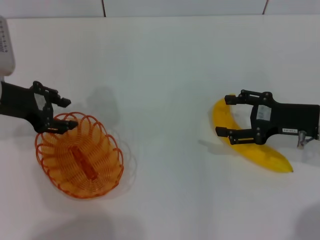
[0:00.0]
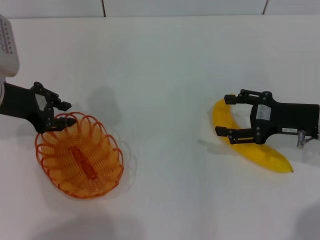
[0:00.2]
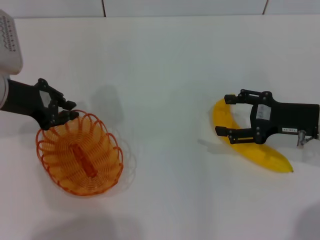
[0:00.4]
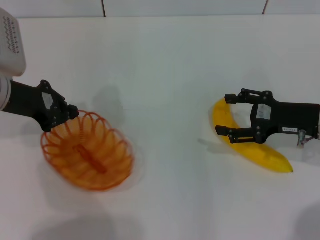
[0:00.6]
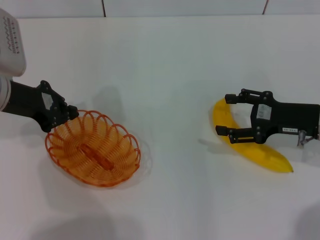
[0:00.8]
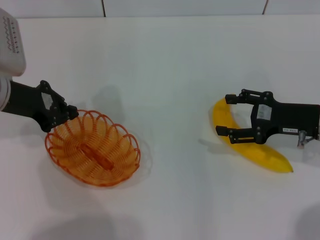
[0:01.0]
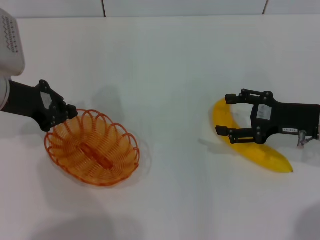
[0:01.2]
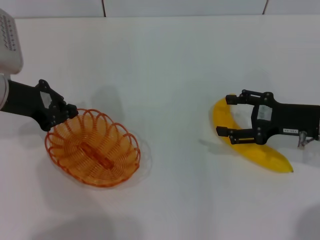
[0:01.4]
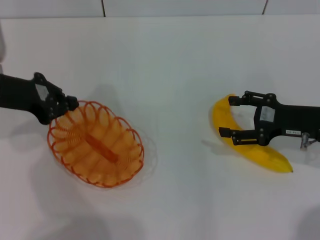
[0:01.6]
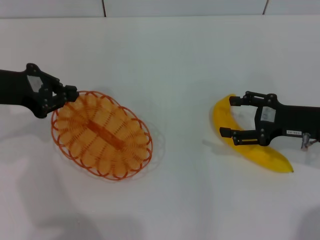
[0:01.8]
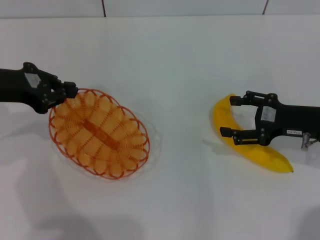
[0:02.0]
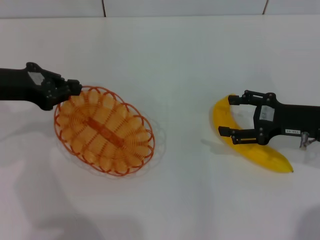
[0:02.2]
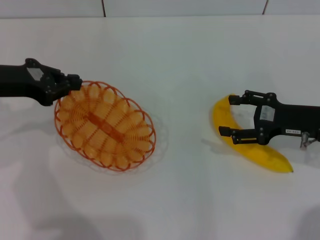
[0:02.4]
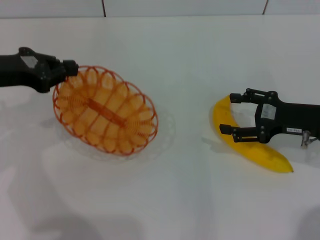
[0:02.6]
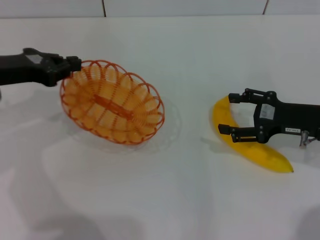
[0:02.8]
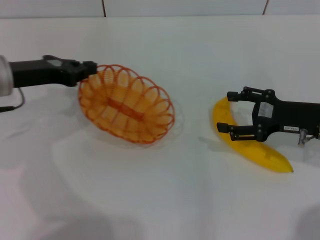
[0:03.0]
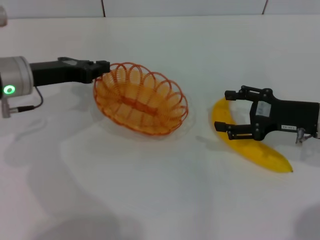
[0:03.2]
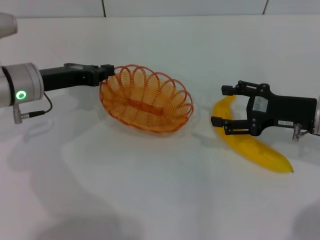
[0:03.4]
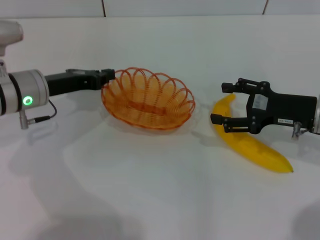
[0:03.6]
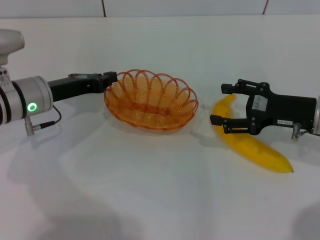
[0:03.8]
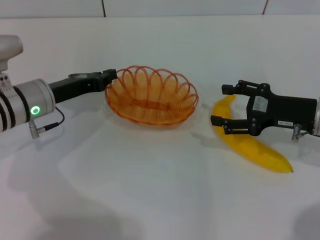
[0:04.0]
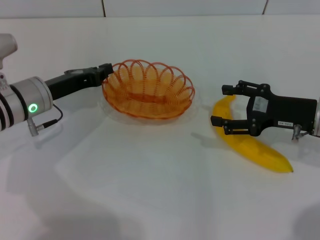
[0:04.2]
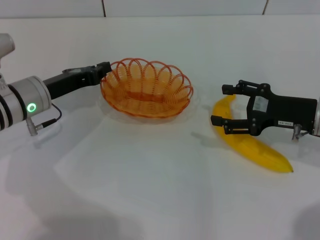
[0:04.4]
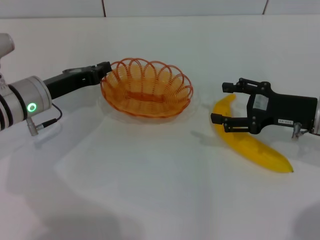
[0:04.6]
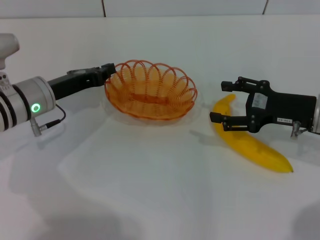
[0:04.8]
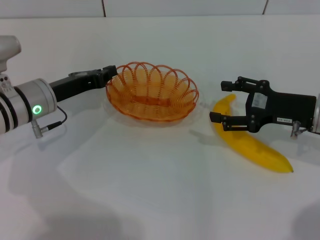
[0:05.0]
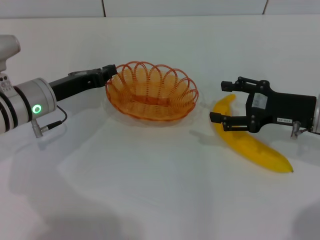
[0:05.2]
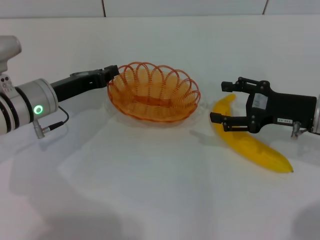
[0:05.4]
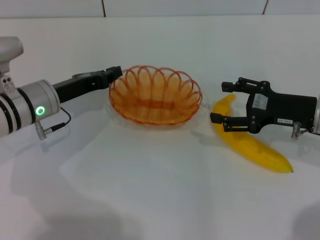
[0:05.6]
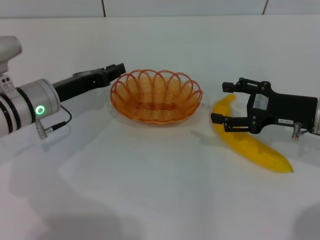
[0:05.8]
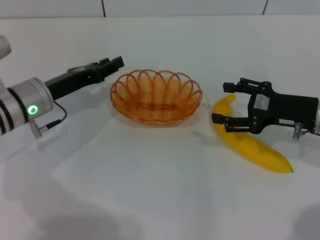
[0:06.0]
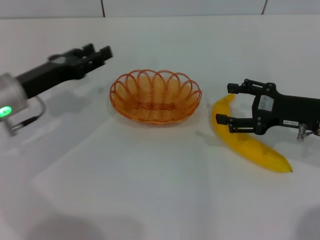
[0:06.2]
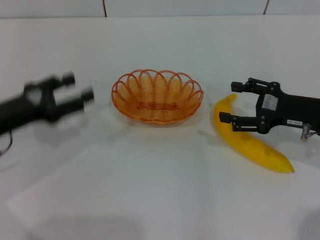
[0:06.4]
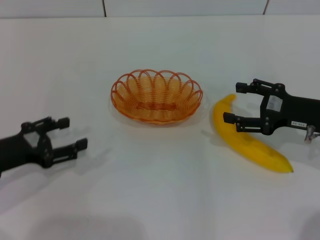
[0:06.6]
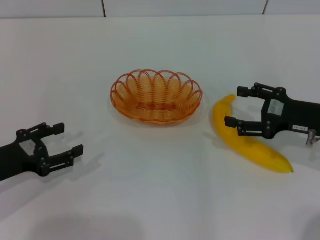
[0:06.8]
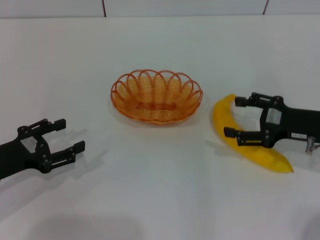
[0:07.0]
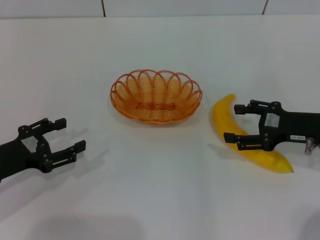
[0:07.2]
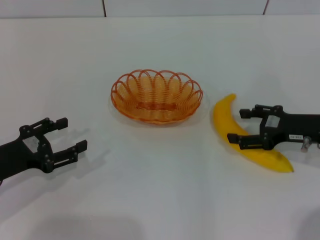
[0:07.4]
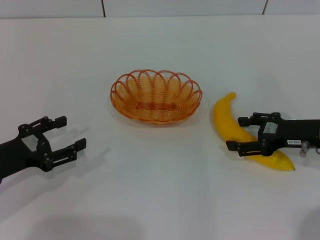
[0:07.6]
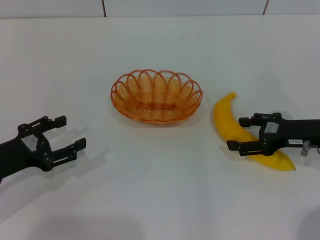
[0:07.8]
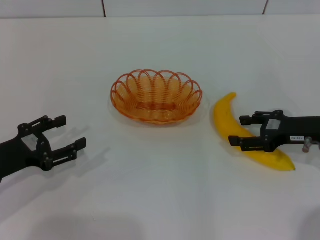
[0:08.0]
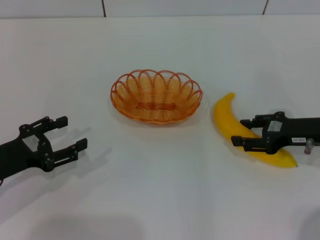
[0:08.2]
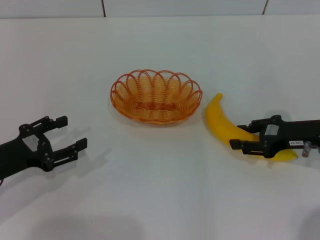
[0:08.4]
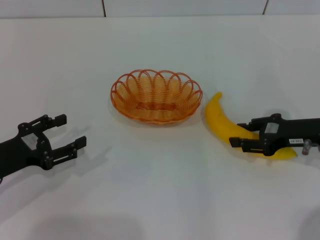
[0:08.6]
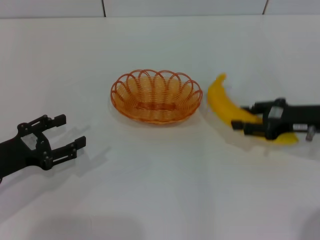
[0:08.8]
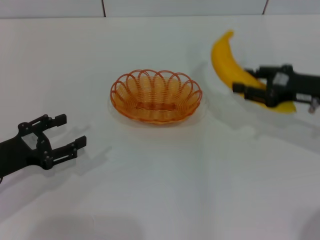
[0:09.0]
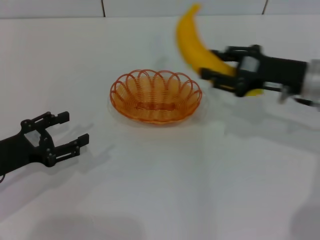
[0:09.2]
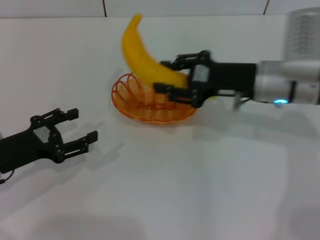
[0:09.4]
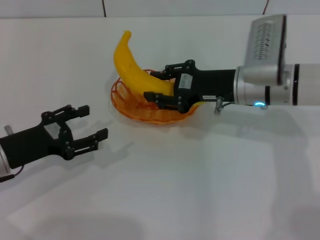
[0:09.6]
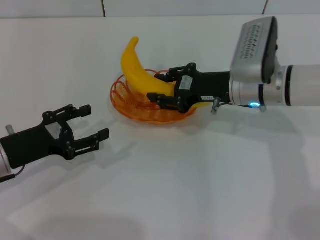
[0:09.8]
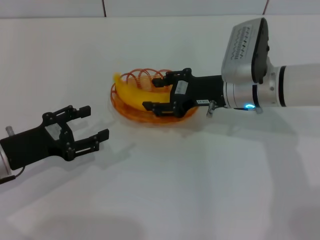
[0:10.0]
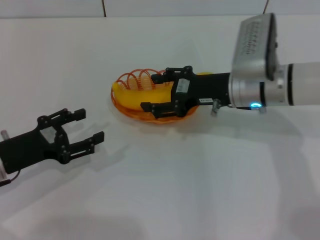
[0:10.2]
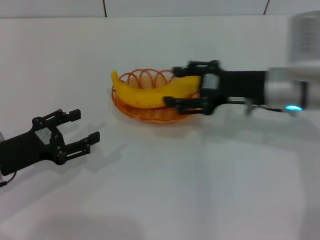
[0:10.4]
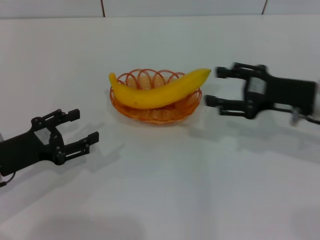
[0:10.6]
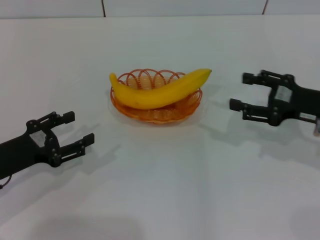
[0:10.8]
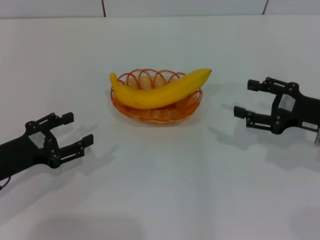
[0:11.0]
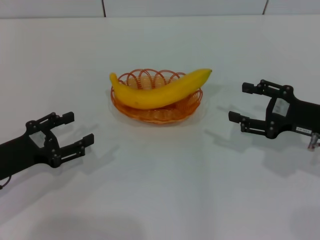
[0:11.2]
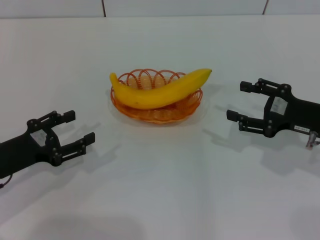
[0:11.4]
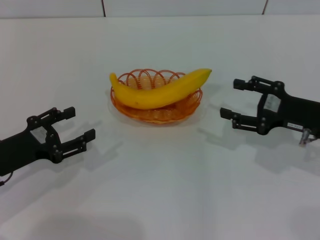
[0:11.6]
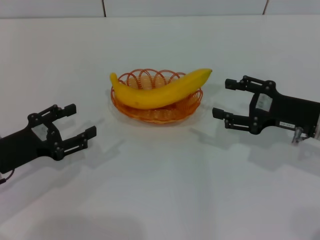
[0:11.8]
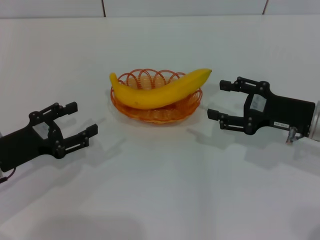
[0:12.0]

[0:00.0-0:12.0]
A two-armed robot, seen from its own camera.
Step, 0:02.0 to 0:06.0: Place the basket in the center of view with the left gripper.
Step, 0:06.2 to 0:08.8: Pick up the banana with the right gripper.
Step, 0:09.2 to 0:10.4: Place the banana into the basket with the right gripper.
0:00.0 to 0:01.6: The left gripper closes.
0:03.0 to 0:04.4: The left gripper is displaced downward by approximately 5 cm.
0:04.4 to 0:06.0: The grippers move only a little.
0:06.0 to 0:07.6: The left gripper is displaced backward and to the left by roughly 15 cm, and opens up.
0:07.6 to 0:09.0: The right gripper moves approximately 5 cm, and closes up.
0:09.0 to 0:10.4: The right gripper goes approximately 10 cm to the left, and opens its fingers.
0:10.4 to 0:12.0: The right gripper travels to the right by approximately 5 cm.
